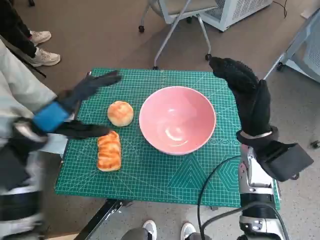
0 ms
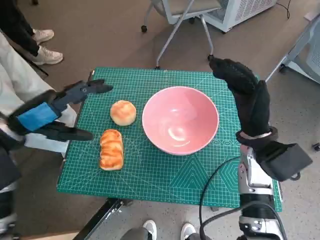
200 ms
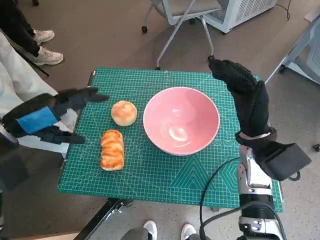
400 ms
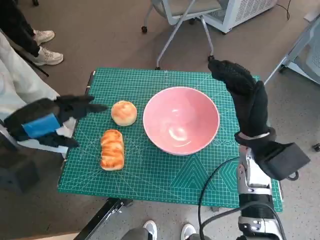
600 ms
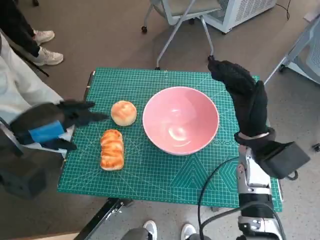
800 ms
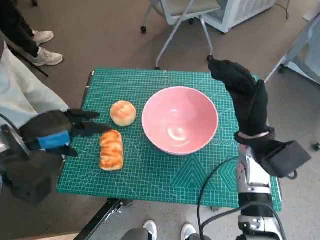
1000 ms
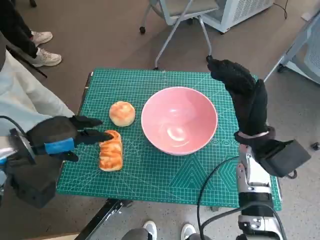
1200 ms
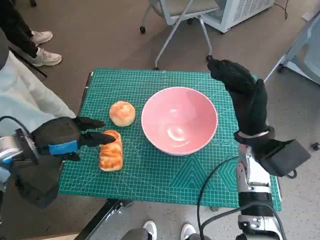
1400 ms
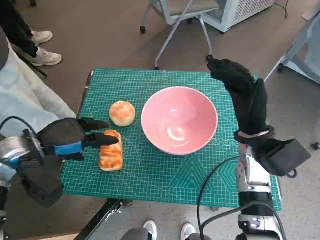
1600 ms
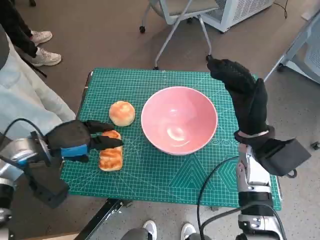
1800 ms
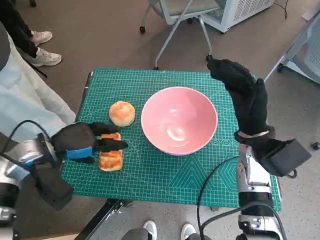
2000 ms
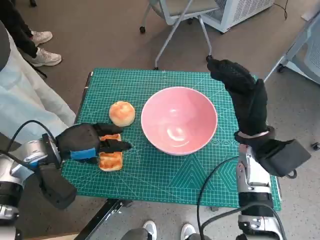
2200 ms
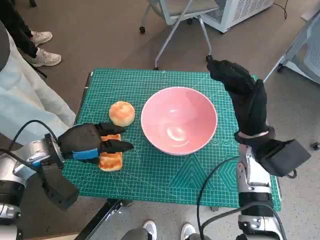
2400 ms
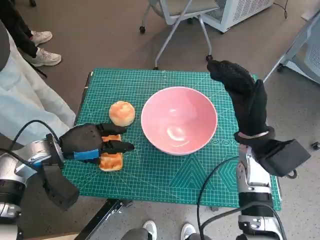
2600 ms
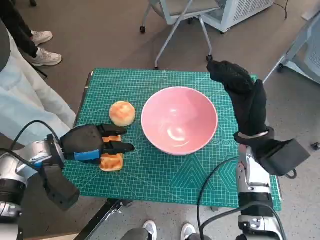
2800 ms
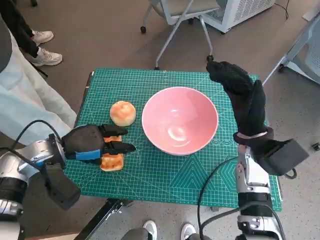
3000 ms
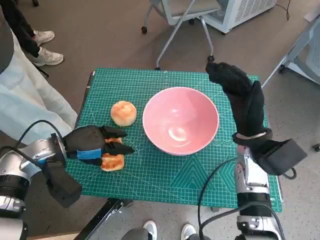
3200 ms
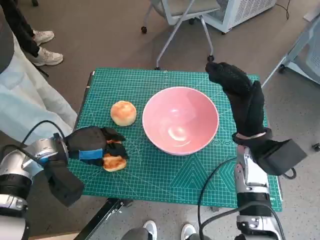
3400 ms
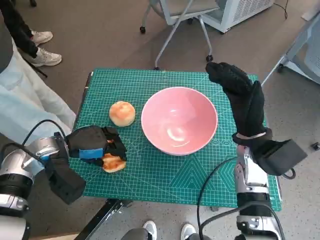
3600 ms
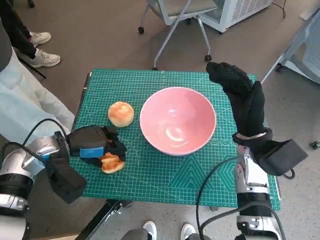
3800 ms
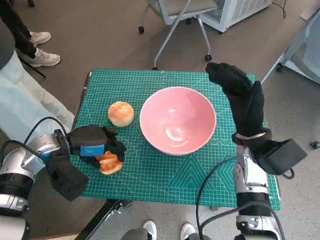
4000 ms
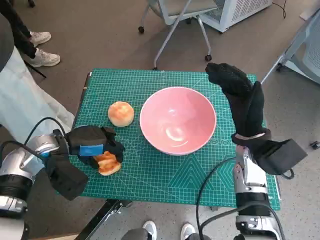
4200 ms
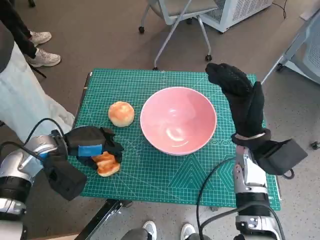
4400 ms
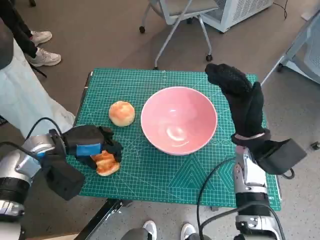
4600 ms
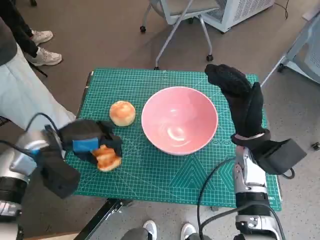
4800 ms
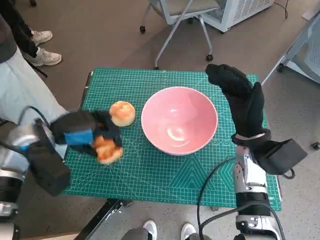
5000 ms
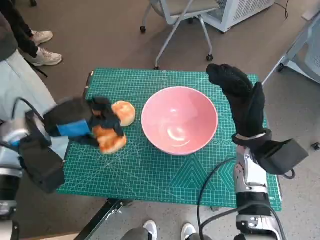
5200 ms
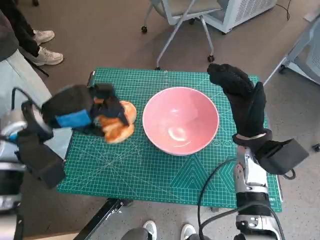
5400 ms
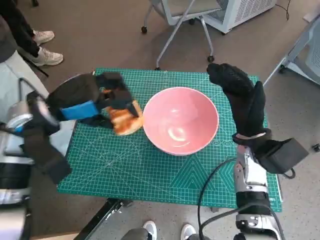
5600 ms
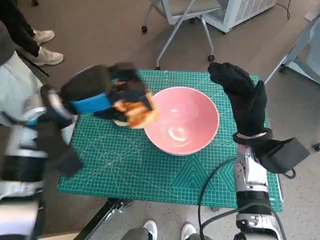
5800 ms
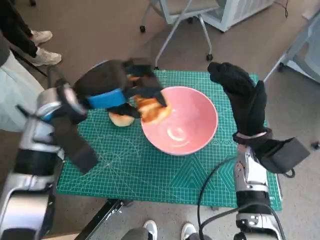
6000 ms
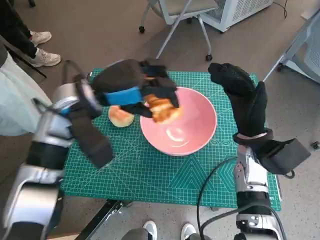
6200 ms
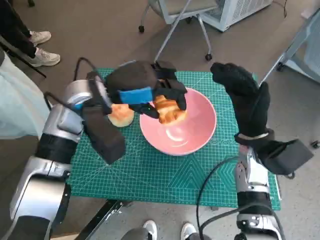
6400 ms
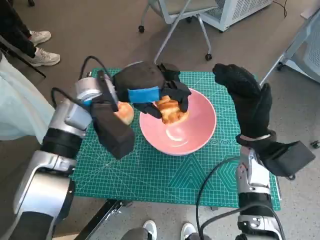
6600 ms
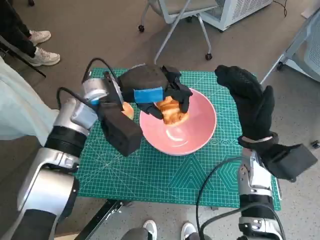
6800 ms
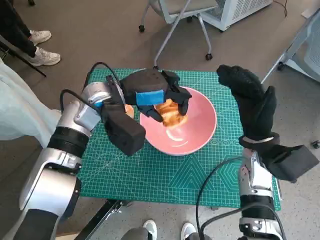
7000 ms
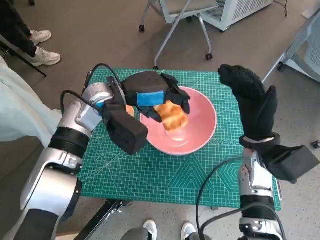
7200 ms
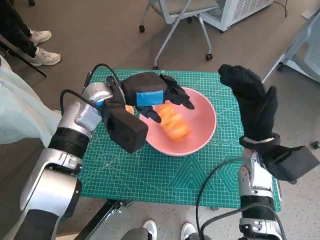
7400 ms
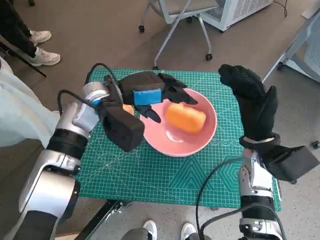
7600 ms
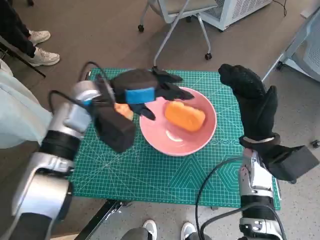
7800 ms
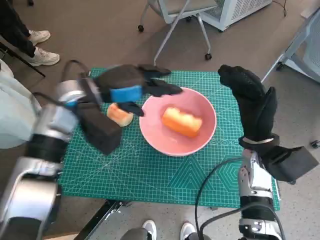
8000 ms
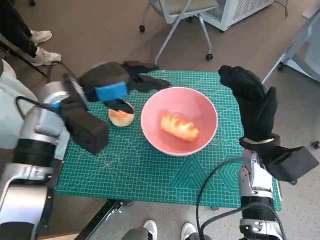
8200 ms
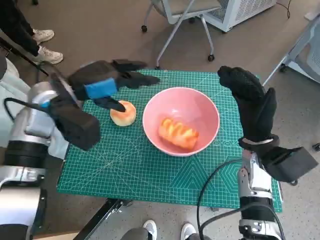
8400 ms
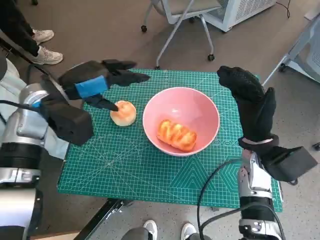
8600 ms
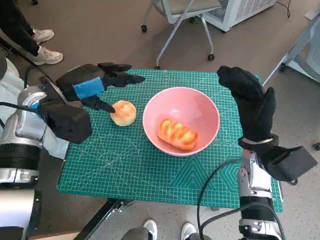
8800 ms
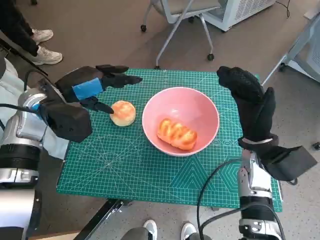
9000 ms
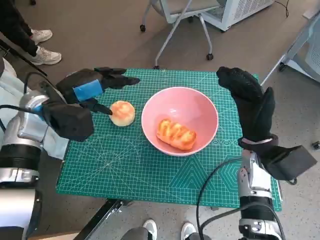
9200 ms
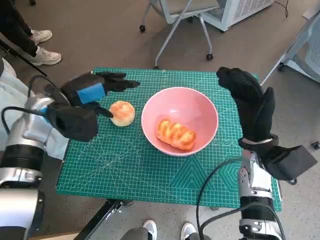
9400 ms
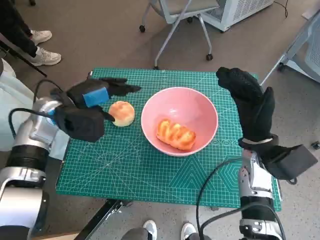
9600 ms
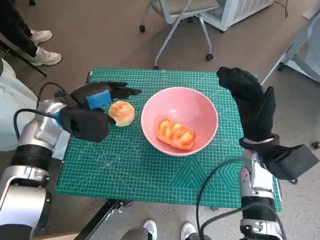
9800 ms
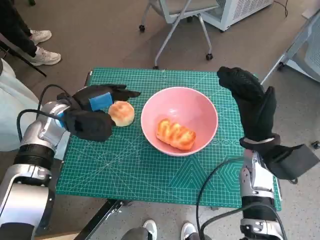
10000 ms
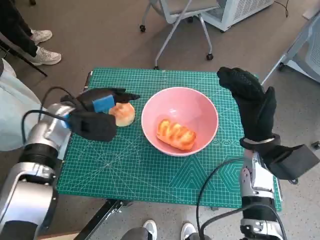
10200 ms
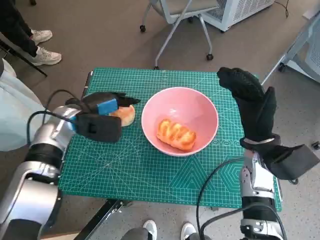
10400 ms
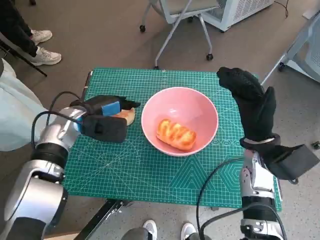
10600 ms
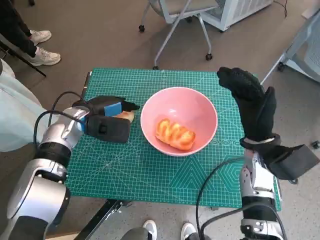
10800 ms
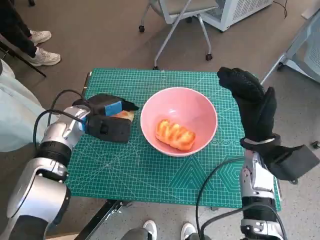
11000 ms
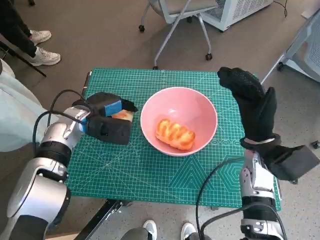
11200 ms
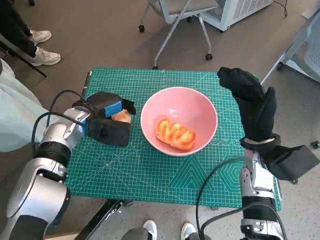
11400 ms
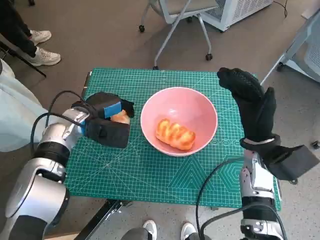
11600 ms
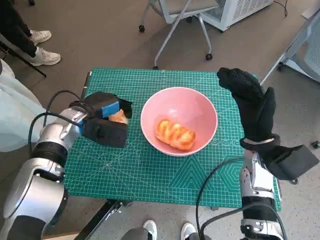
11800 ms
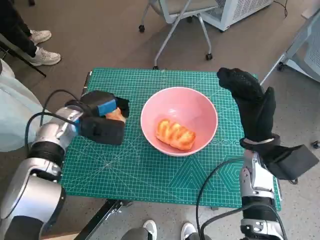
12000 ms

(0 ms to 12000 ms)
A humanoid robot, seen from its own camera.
Task of the whole recording: Push the bowl into the center of the table and put the bread into the bowl.
Step, 0 ms - 3800 ms: Grasp the long bread with left hand.
Step, 4000 ms - 8200 ms: Place the long bread in pink bowl with left hand.
1600 ms - 4400 ms: The hands move only a little.
4400 ms - 6000 ms: The left hand travels upward and to the right by approximately 15 cm.
6000 ms - 7600 ms: The left hand is displaced to the right by some 5 cm.
7600 ms - 9000 ms: The left hand goes about 10 cm to the left.
9000 ms - 10400 ms: The left hand shifts roughly 5 cm downward.
10400 ms - 12000 ms: The hands move only a little.

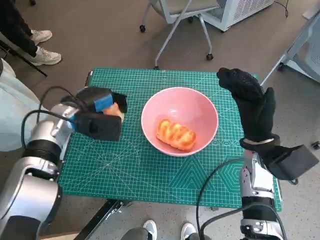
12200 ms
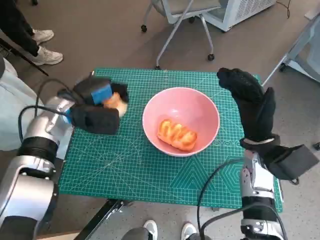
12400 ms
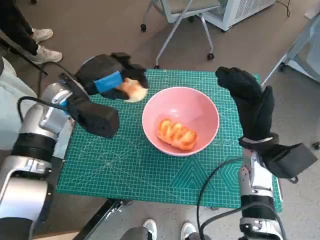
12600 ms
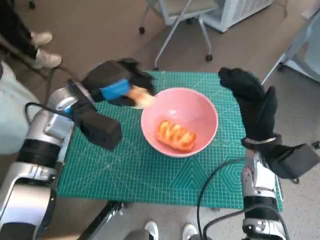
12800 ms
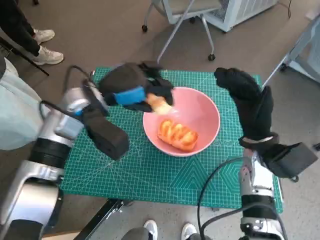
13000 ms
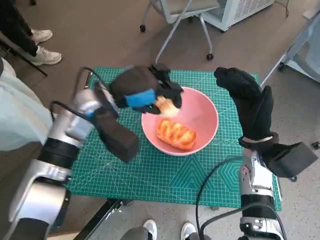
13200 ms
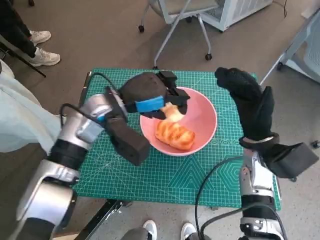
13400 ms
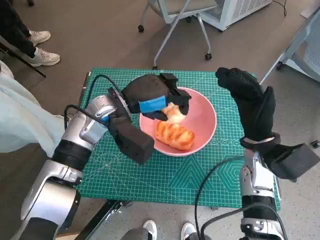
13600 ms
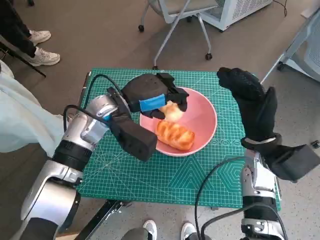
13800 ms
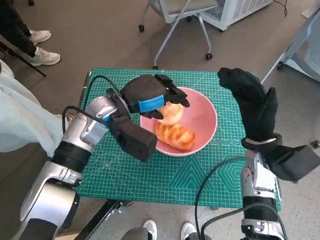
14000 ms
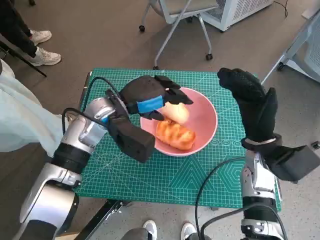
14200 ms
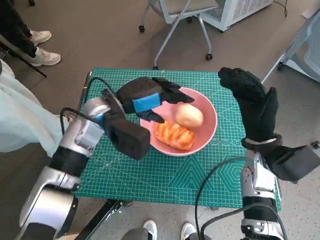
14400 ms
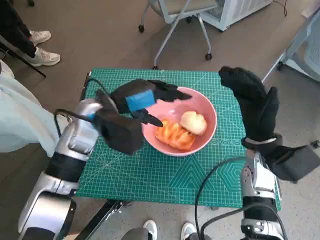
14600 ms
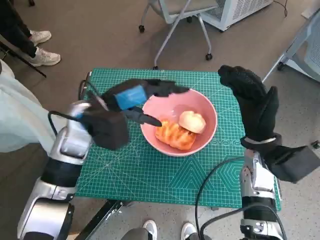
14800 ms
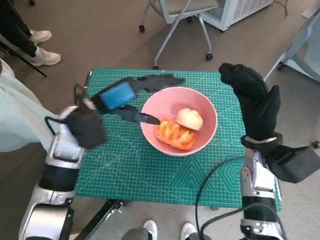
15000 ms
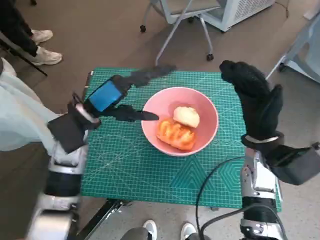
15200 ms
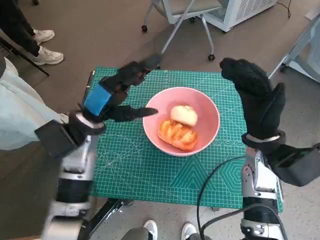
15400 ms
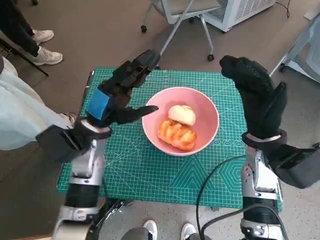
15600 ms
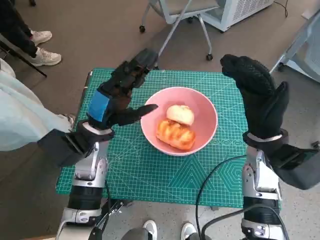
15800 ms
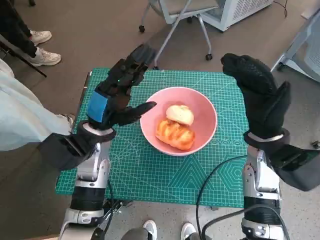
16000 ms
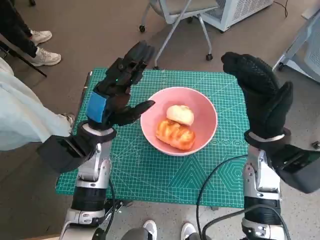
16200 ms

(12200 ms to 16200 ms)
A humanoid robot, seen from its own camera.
Task of the whole recording: Push the bowl into the center of the table and put the bread into the bowl.
Step, 12200 ms - 14800 ms: Place the round bread in pink bowl with left hand.
12200 ms - 13600 ms: The left hand moves to the right, some 10 cm.
14800 ms - 16200 ms: The left hand changes place by some 5 cm.

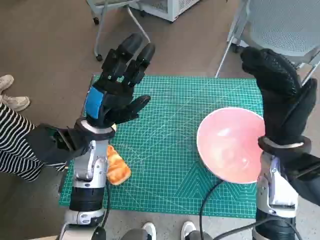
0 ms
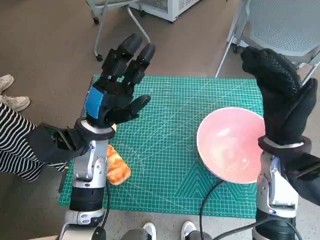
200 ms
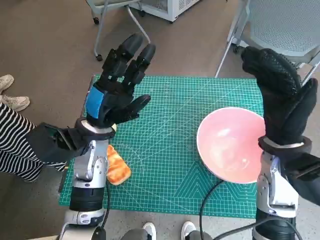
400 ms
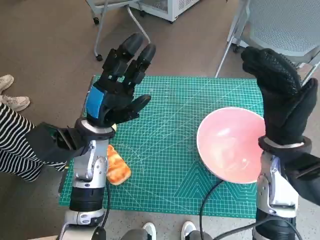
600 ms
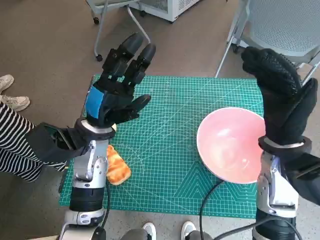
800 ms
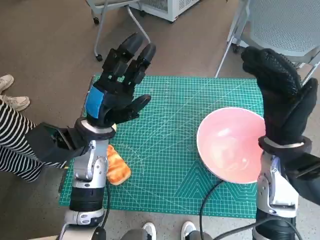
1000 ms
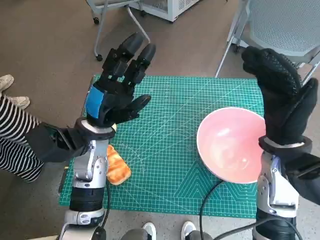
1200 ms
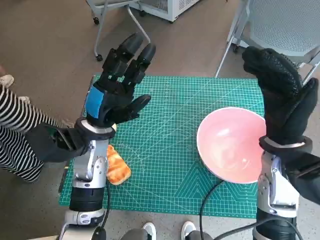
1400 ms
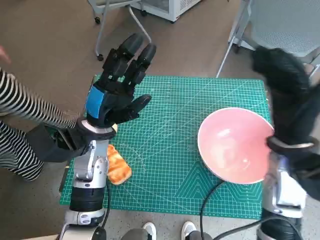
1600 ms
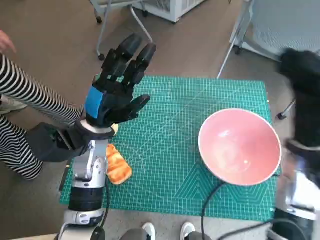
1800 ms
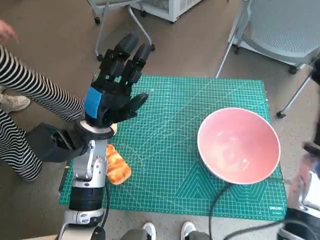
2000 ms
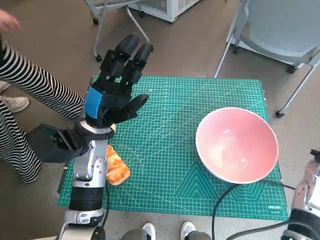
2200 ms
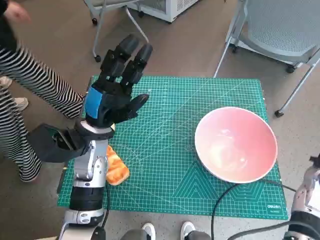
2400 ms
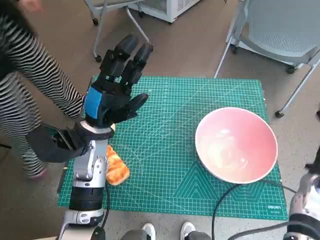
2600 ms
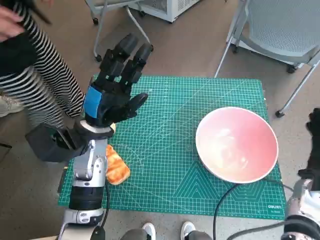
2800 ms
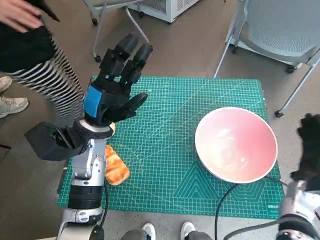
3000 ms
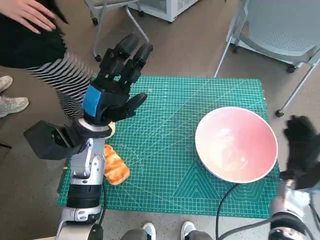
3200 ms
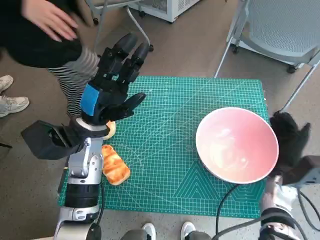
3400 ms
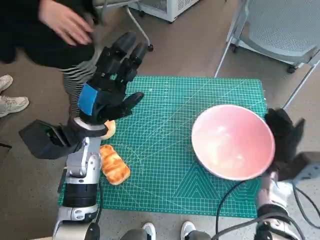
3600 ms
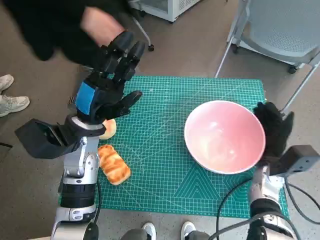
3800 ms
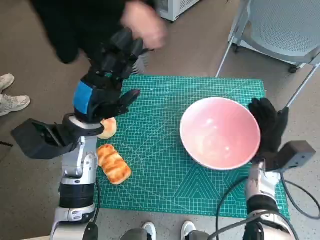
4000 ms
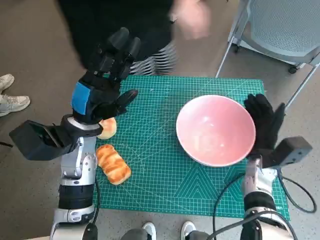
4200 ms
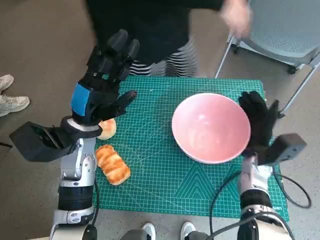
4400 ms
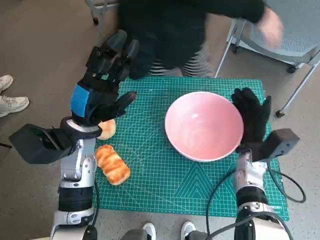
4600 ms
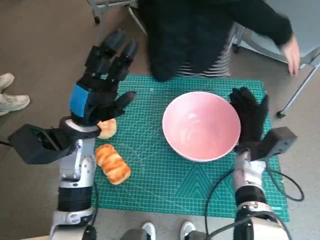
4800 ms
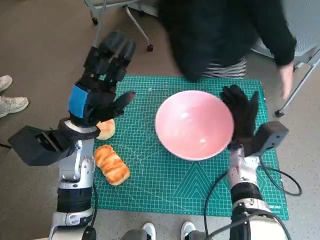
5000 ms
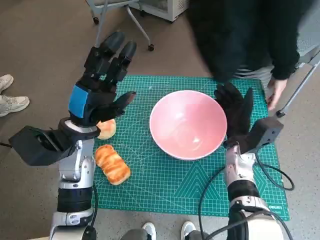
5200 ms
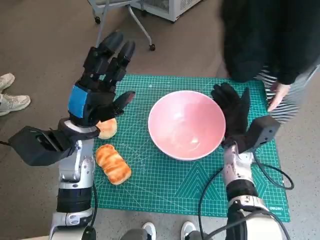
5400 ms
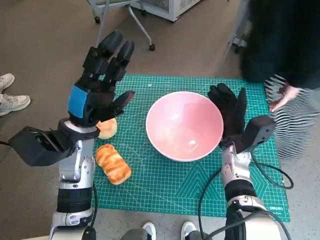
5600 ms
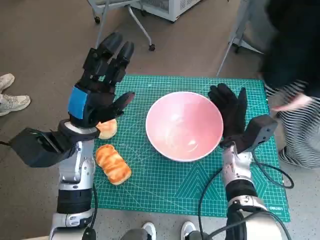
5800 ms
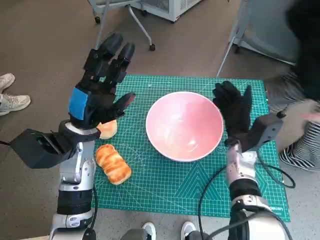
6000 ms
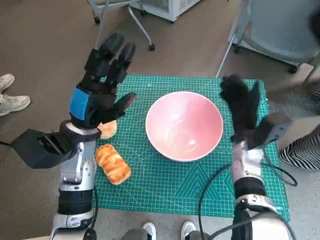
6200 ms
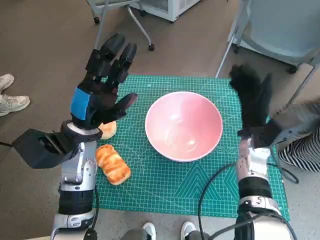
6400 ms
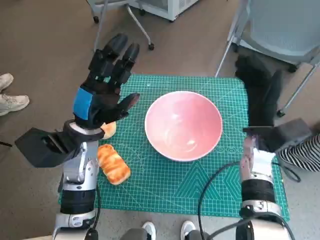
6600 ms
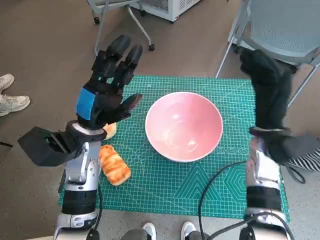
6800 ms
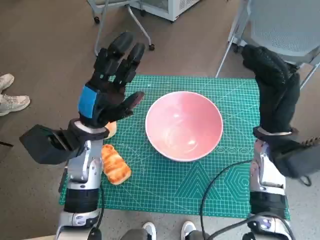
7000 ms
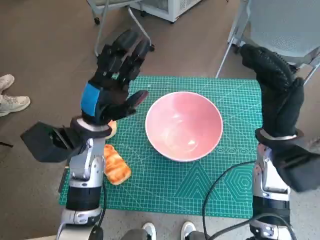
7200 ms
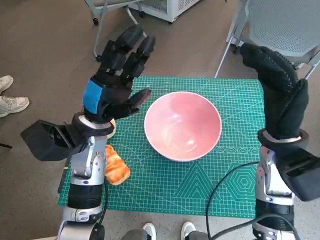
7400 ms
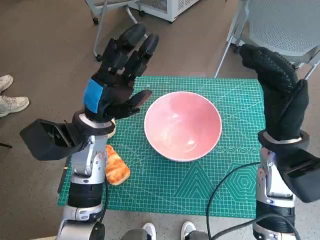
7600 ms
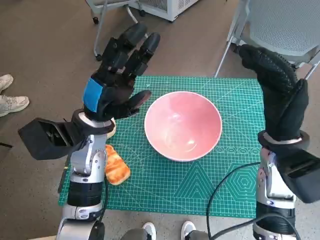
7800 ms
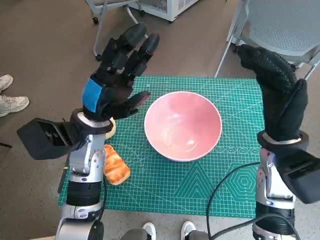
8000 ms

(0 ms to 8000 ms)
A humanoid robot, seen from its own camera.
Task of the whole recording: Push the bowl into the center of the table and put the bread into the bowl.
Step, 0 ms - 6000 ms: Move the pink bowl to the center of table with right hand.
1600 ms - 3200 ms: The right hand shifts approximately 20 cm downward and to the right.
3200 ms - 4800 ms: The right hand goes about 10 cm to the left and forward.
6400 ms - 8000 ms: The right hand shifts roughly 10 cm upward and backward.
